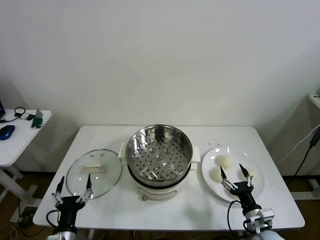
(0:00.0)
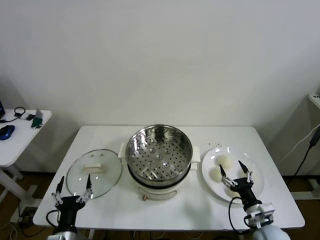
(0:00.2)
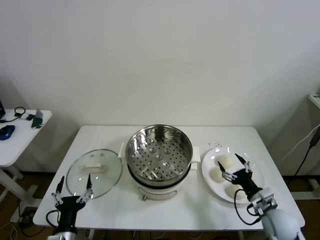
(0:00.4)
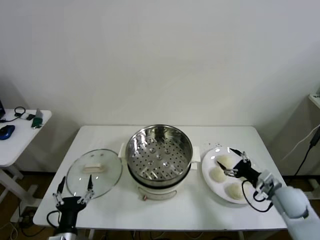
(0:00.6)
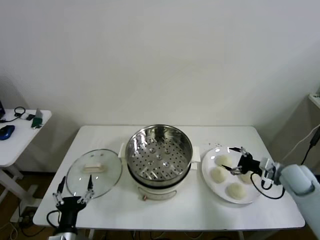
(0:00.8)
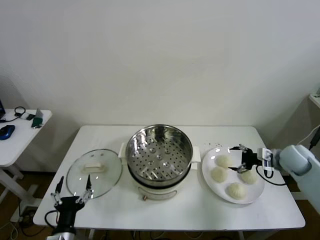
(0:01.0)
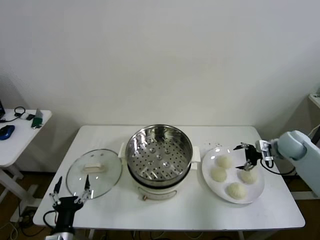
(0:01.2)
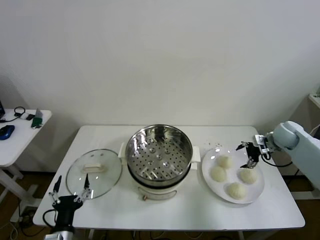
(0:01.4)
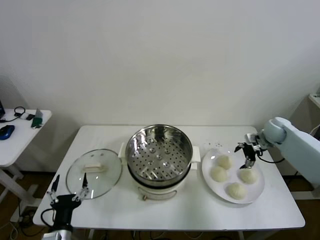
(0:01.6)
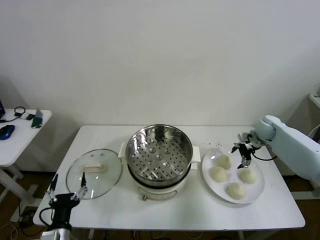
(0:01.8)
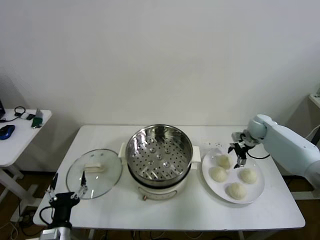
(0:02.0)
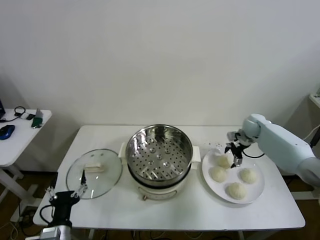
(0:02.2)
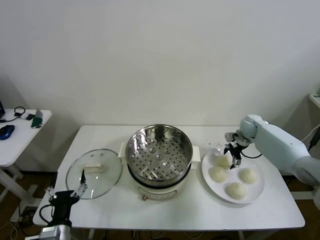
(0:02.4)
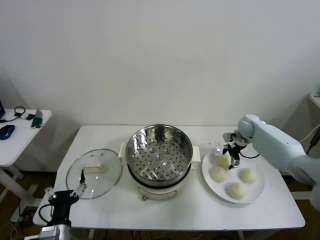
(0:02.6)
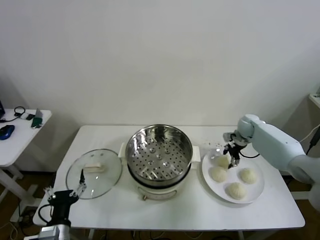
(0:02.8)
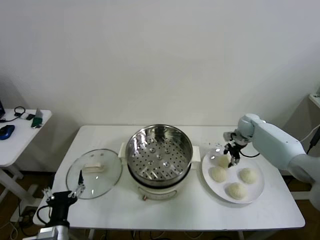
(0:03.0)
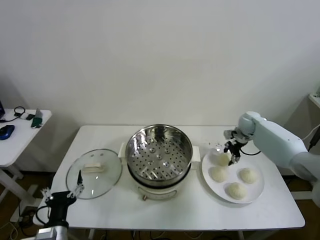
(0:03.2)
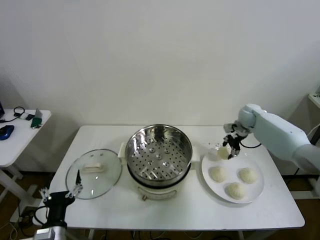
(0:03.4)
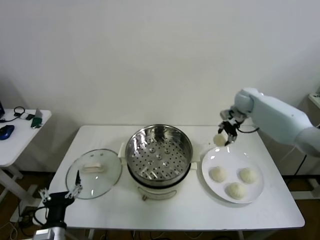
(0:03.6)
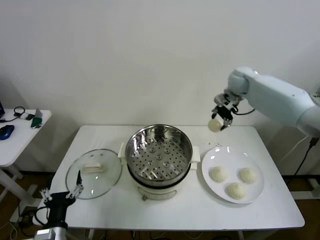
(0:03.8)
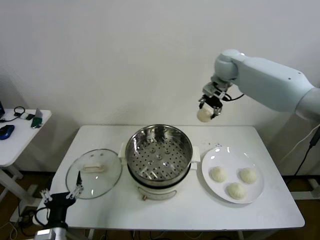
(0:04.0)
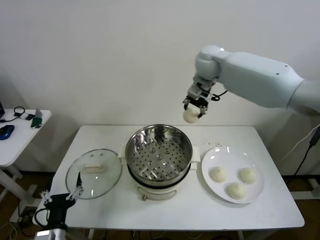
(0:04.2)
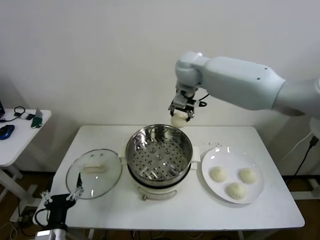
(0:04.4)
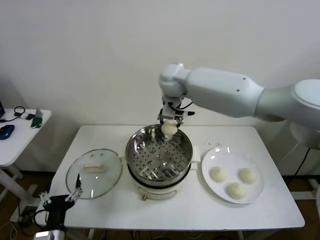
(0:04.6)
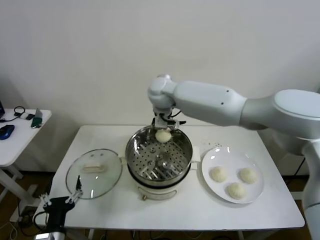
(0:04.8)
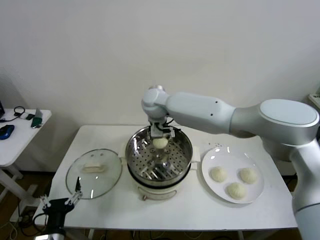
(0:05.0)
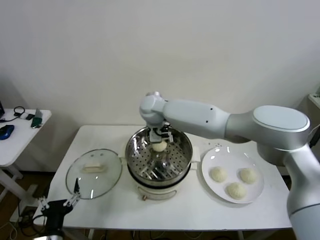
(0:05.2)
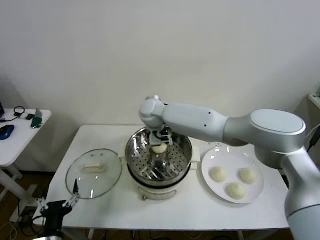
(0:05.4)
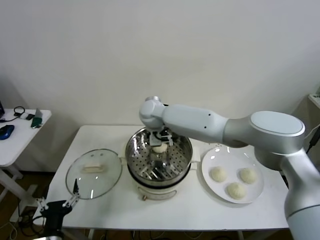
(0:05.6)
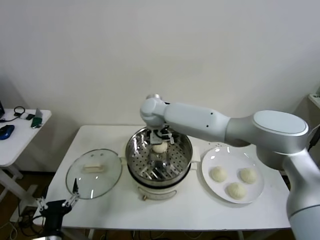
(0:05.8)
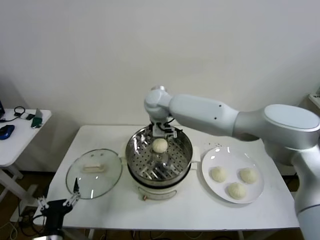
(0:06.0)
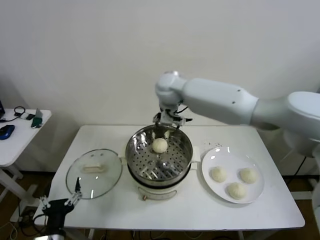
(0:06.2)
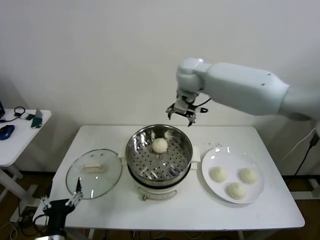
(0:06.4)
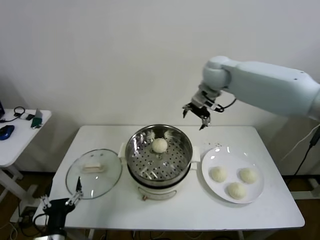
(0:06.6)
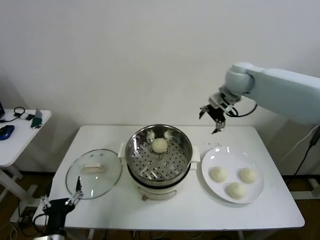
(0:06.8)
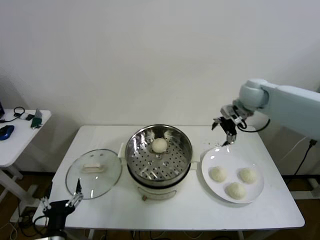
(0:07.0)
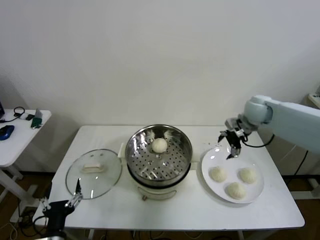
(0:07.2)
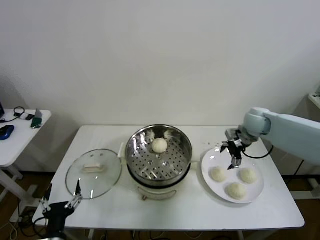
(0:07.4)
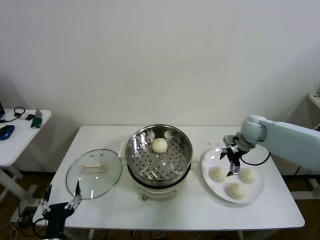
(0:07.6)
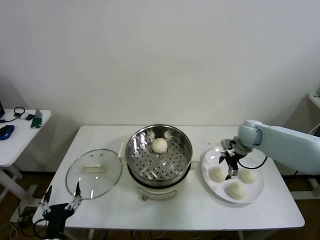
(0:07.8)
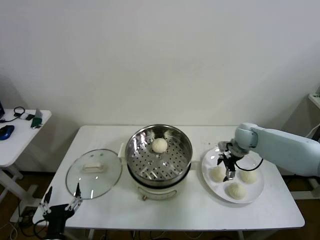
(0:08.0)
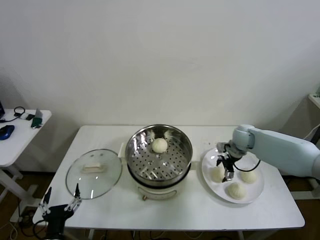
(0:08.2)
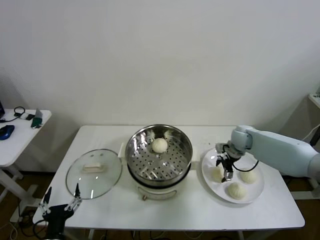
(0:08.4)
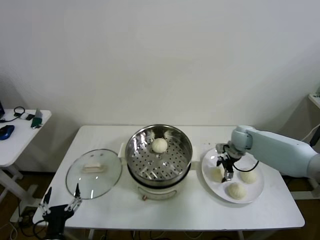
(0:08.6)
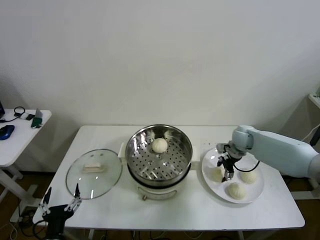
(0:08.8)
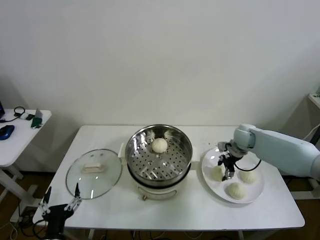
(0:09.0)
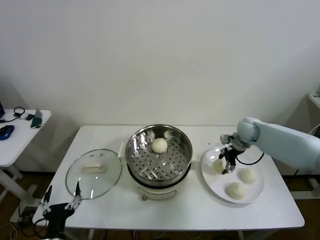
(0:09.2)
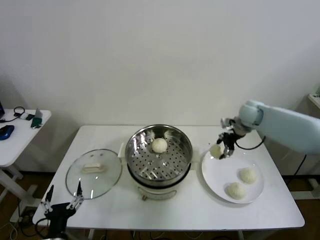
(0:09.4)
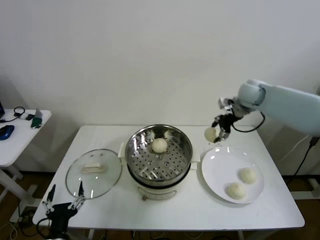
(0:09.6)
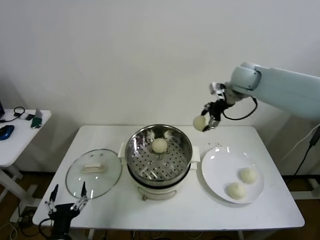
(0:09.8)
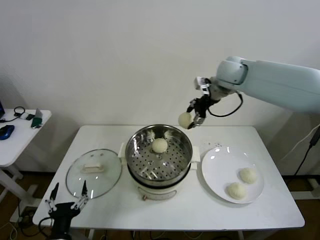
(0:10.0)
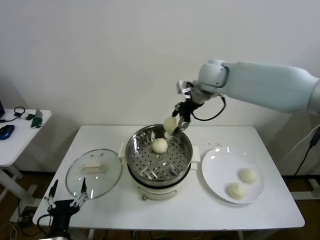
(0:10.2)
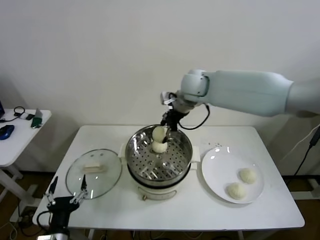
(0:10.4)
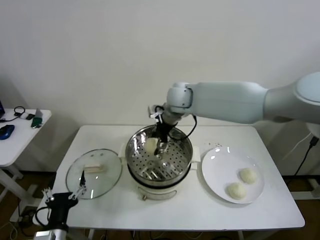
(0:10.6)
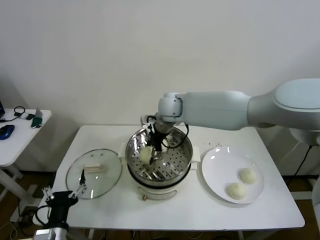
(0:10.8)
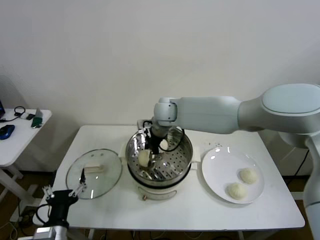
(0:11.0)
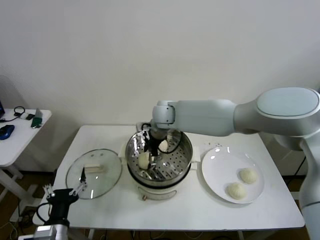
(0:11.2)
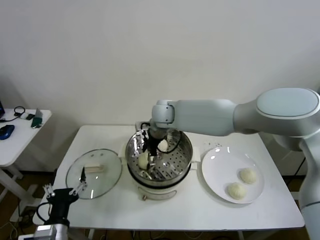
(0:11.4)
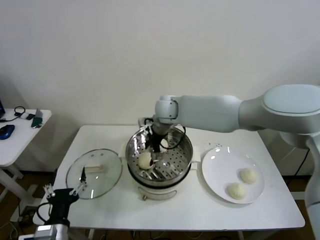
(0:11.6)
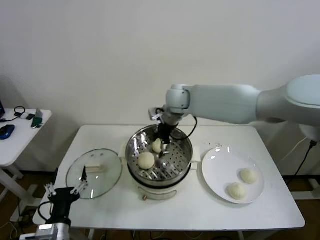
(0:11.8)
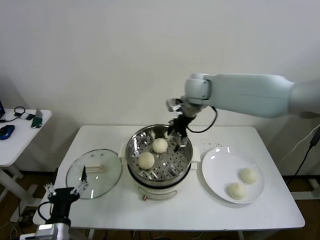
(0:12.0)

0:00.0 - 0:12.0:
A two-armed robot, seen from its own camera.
Step, 0:00.0 - 0:03.0: Grasp the baozi in the plate with right gripper.
Step, 0:03.2 - 0:05.8: Place the baozi on the steamer with right gripper.
Step, 0:06.0 - 0:08.8: Grasp the baozi in the plate with right gripper.
Step, 0:09.0 - 0:11.4: Place the baozi on the steamer with right gripper.
0:01.6 - 0:03.0: The right gripper is displaced to the left and forward by approximately 10 cm, and closes up.
0:03.0 - 0:04.4: The right gripper shifts approximately 40 cm to the left and upward.
0:04.4 - 0:06.0: The right gripper heads downward and to the left, covering roughly 10 cm, and opens.
0:06.0 - 0:07.6: The right gripper is displaced to the right and downward by some 35 cm.
0:07.6 - 0:09.0: The right gripper closes.
0:09.0 - 0:10.4: The right gripper heads to the left and upward, covering approximately 30 cm.
0:10.4 - 0:12.0: The right gripper shifts some 5 cm to the right, and opens.

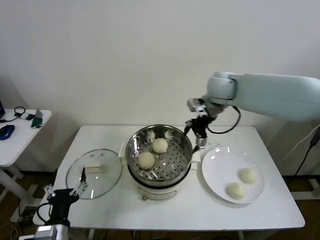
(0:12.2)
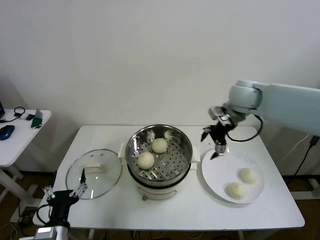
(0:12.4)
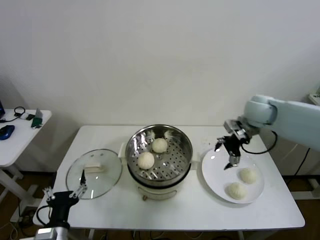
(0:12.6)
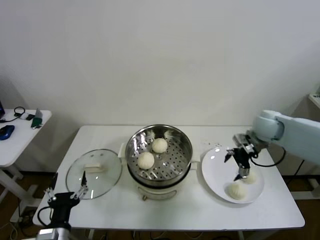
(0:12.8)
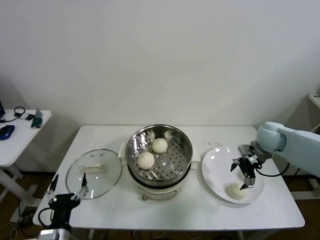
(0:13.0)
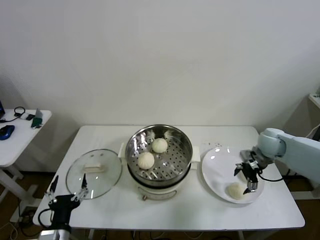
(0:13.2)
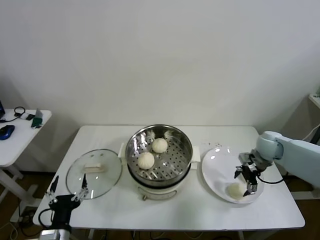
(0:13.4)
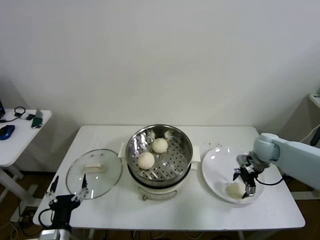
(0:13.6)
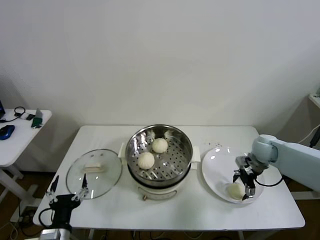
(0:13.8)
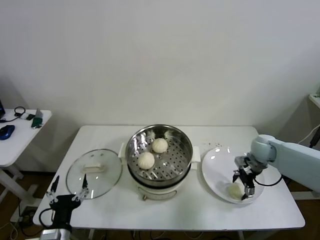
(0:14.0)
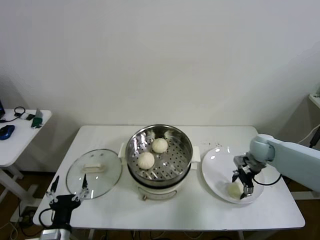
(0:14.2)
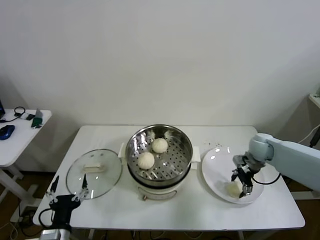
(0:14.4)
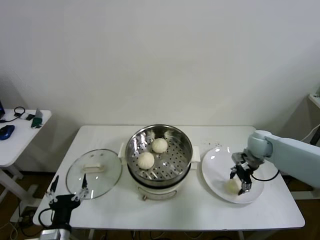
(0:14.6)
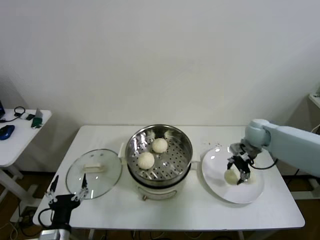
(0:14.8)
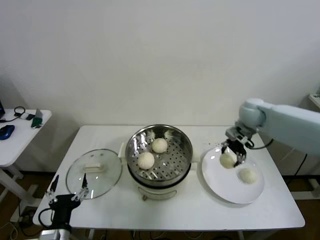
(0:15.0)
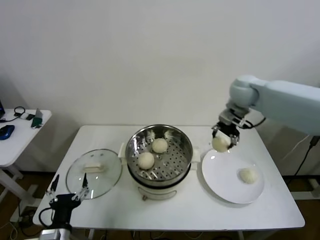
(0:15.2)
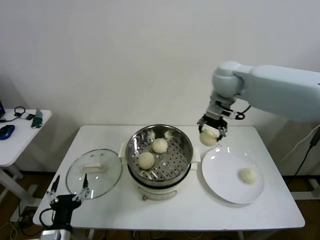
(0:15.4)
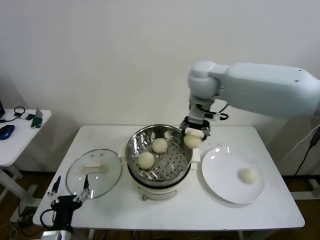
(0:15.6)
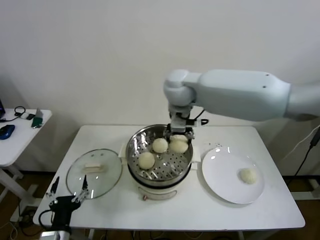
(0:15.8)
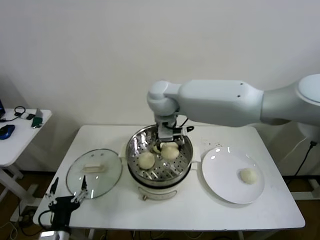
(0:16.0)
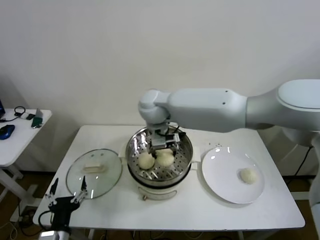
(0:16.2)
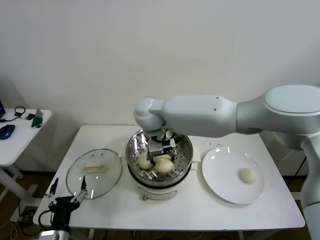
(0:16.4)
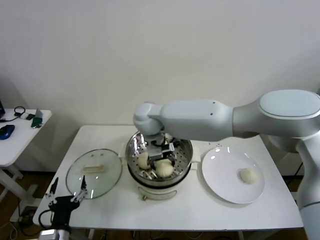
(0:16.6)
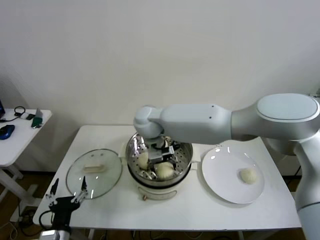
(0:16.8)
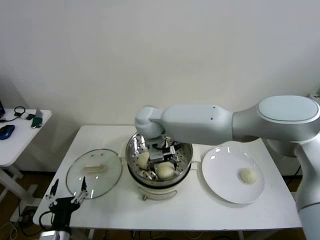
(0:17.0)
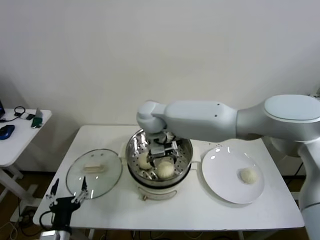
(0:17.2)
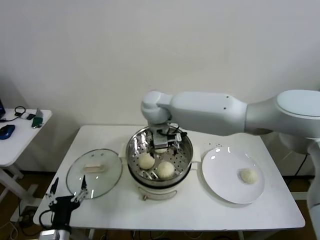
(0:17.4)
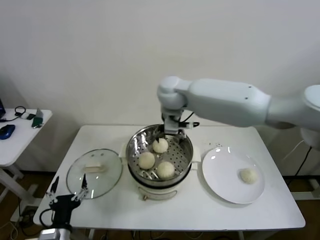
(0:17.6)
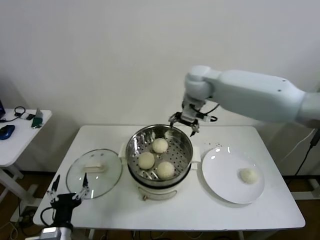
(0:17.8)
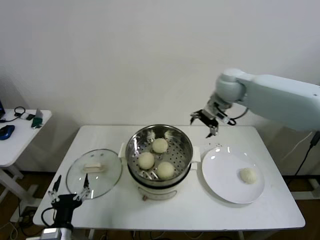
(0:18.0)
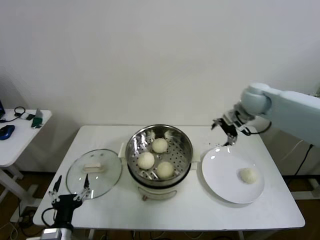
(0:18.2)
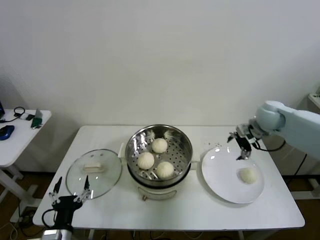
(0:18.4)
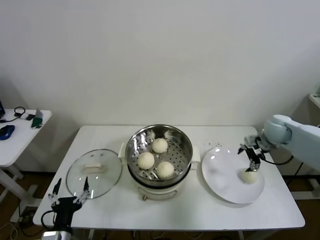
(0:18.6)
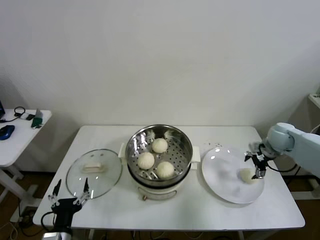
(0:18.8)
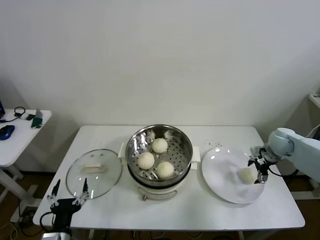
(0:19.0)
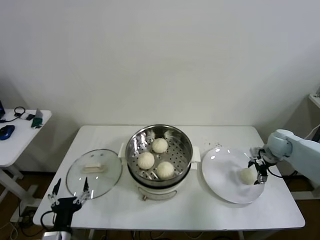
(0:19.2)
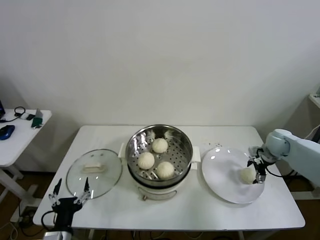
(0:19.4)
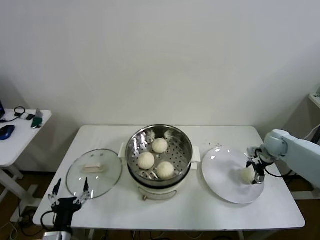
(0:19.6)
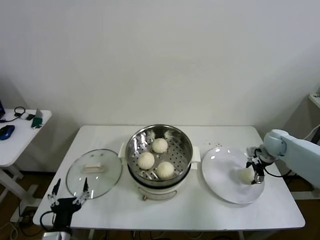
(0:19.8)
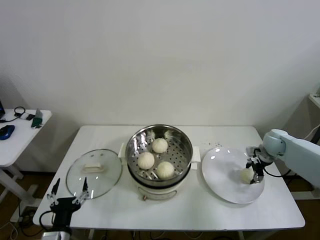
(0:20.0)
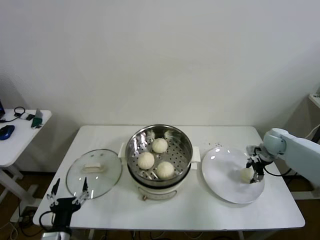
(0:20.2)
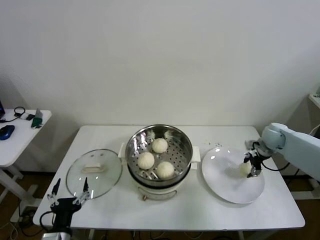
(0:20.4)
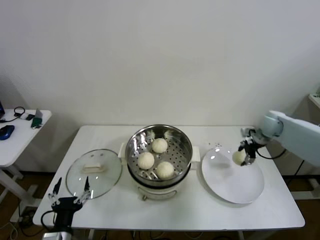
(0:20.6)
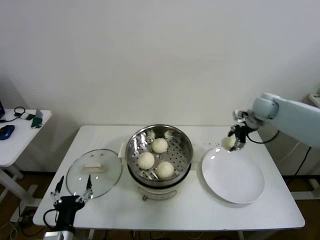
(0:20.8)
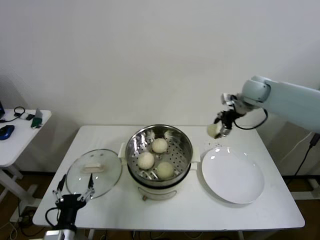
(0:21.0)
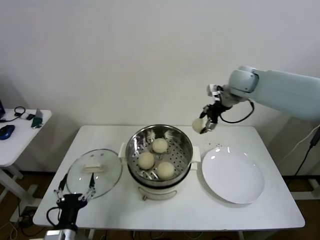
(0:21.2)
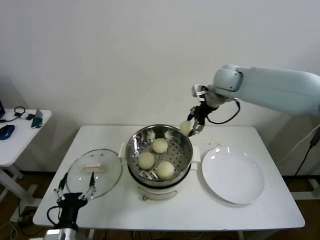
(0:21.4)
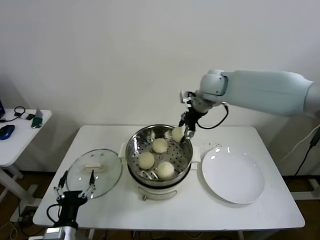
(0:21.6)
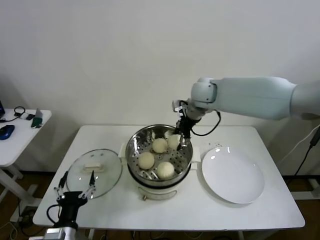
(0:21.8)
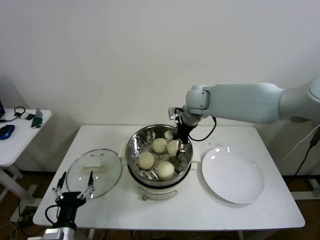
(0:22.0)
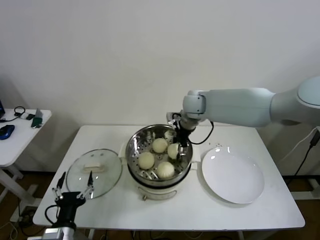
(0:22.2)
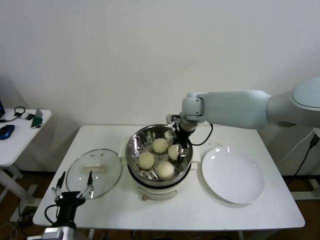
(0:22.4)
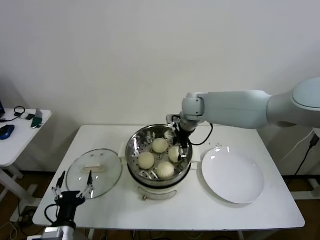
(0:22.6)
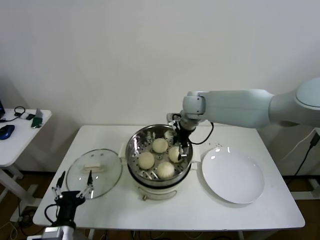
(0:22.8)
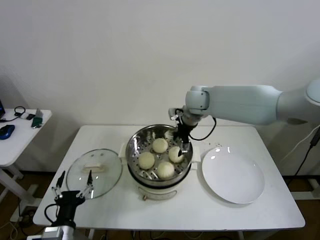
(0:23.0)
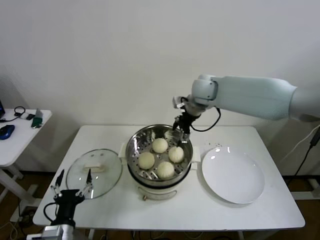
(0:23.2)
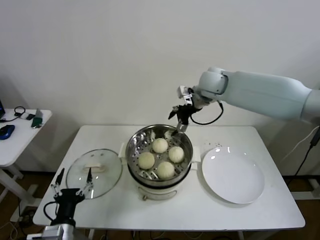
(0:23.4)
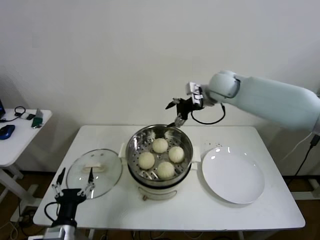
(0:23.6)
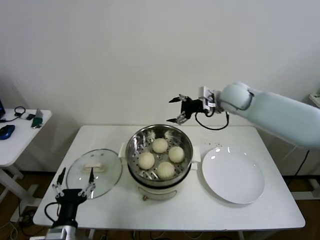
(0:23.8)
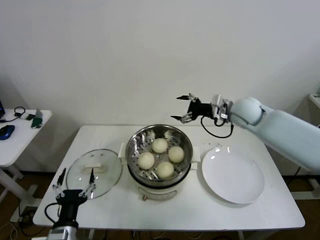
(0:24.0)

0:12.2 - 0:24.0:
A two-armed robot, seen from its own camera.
Step, 0:12.2 - 0:14.2: Grasp the baozi in the plate with right gripper.
Step, 0:14.4 - 0:16.6: Place the baozi on the steamer with right gripper.
Step, 0:16.8 - 0:19.8: Grasp the baozi in the plate with right gripper.
Step, 0:20.0 - 0:22.6: Place the baozi on the steamer with right gripper.
0:12.2 - 0:13.6: The right gripper is displaced downward and to the right by roughly 30 cm.
0:13.6 - 0:15.2: The right gripper heads upward and to the left, covering some 25 cm, and closes up.
0:15.2 - 0:16.6: The right gripper heads to the left, covering approximately 30 cm.
0:16.6 - 0:18.2: The right gripper heads to the right, covering some 35 cm, and opens.
0:18.2 - 0:19.6: The right gripper goes about 20 cm downward and to the right.
0:19.6 - 0:21.0: The right gripper moves upward and to the left, approximately 25 cm, and closes.
0:21.0 - 0:22.6: The right gripper shifts roughly 20 cm to the left, and opens.
0:22.6 - 0:24.0: The right gripper goes some 15 cm to the right.
